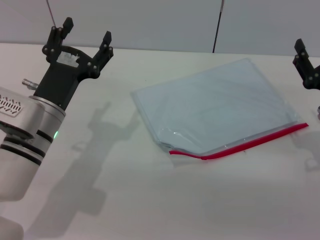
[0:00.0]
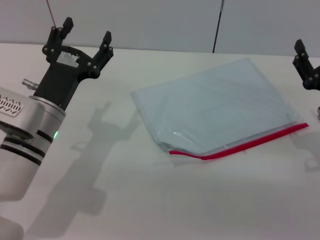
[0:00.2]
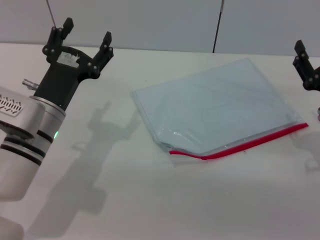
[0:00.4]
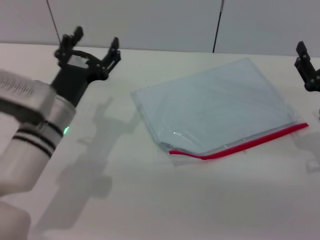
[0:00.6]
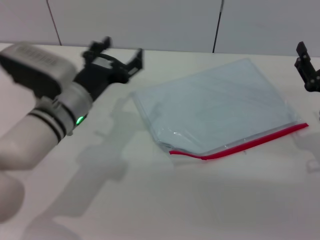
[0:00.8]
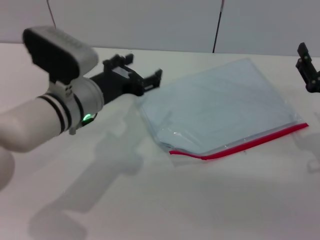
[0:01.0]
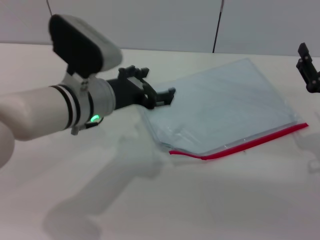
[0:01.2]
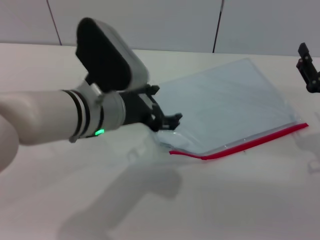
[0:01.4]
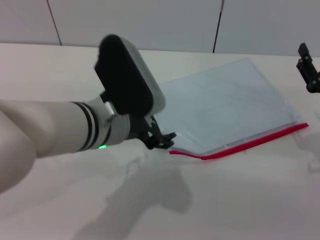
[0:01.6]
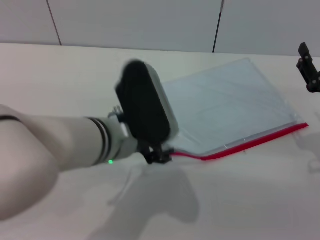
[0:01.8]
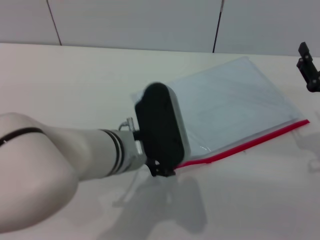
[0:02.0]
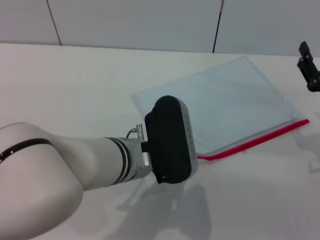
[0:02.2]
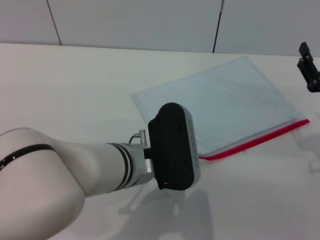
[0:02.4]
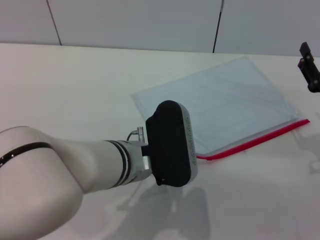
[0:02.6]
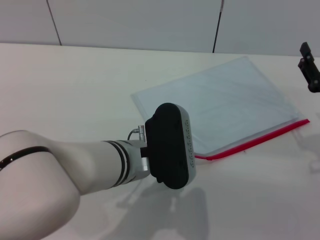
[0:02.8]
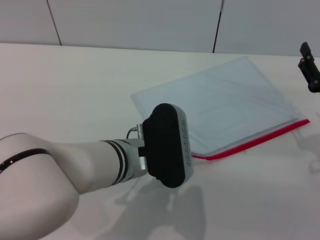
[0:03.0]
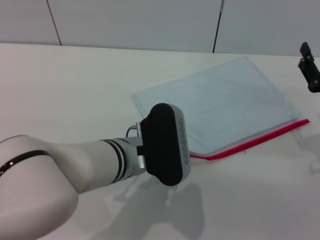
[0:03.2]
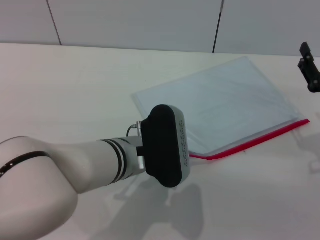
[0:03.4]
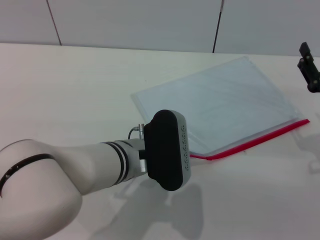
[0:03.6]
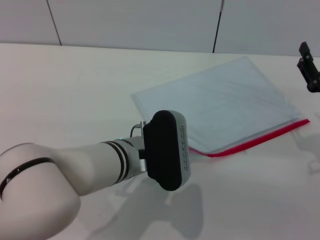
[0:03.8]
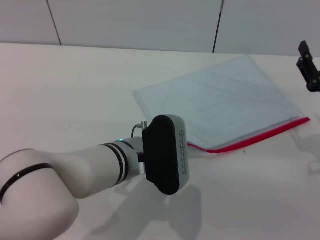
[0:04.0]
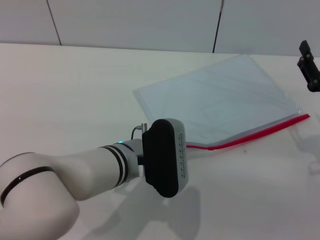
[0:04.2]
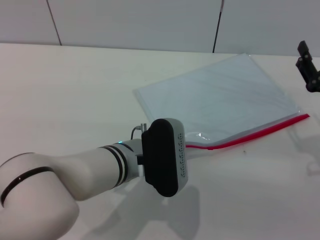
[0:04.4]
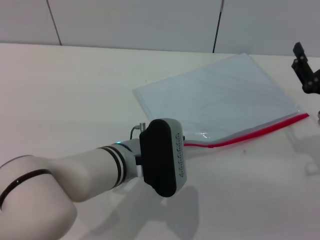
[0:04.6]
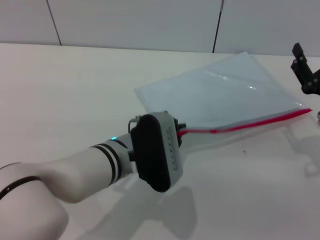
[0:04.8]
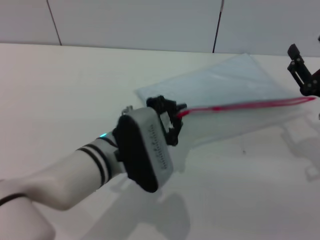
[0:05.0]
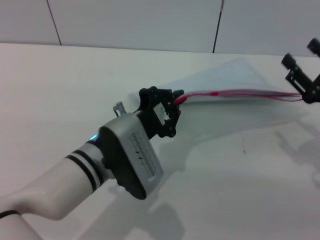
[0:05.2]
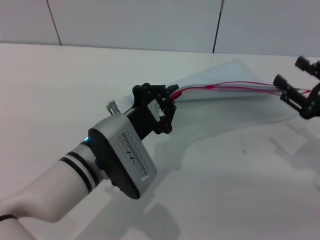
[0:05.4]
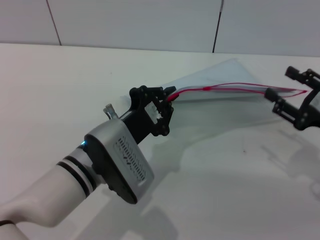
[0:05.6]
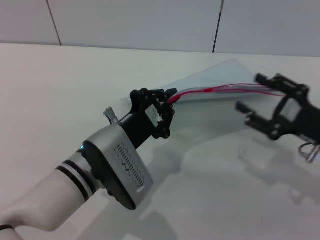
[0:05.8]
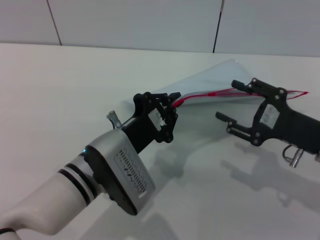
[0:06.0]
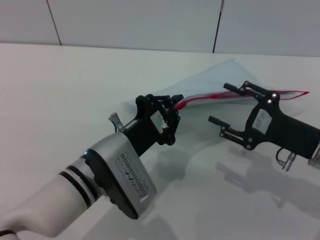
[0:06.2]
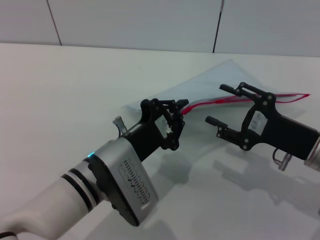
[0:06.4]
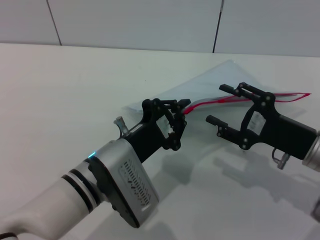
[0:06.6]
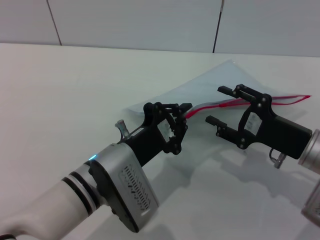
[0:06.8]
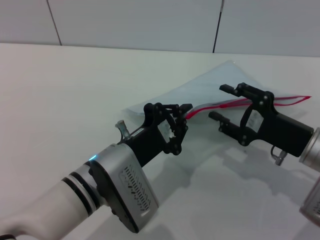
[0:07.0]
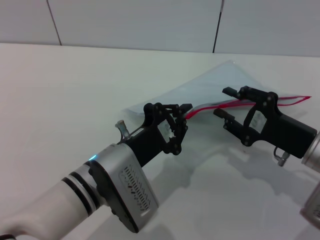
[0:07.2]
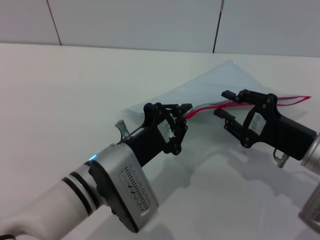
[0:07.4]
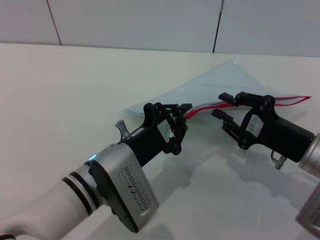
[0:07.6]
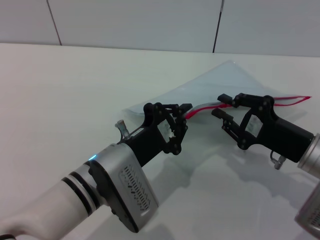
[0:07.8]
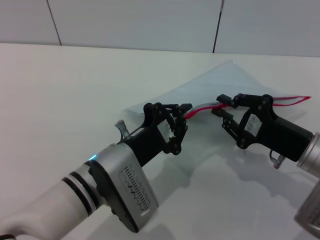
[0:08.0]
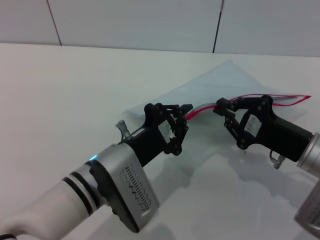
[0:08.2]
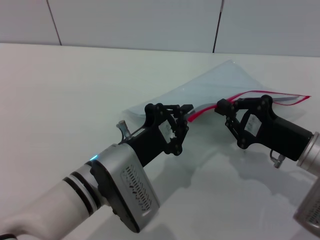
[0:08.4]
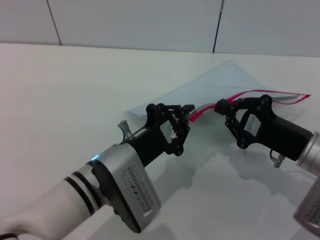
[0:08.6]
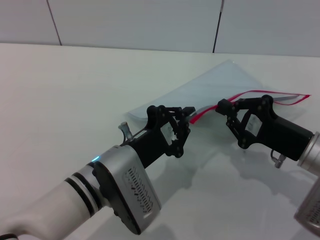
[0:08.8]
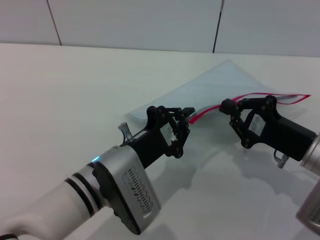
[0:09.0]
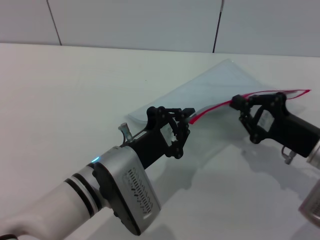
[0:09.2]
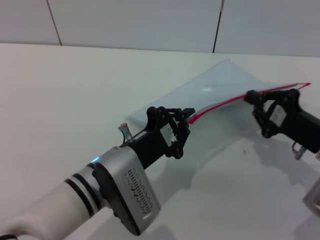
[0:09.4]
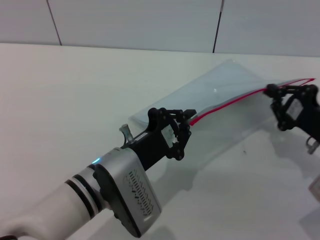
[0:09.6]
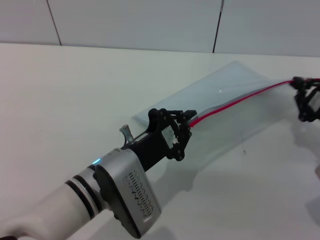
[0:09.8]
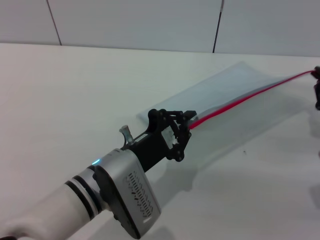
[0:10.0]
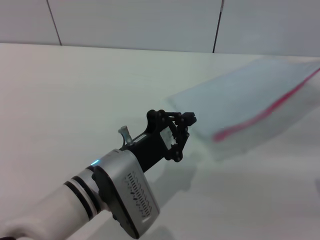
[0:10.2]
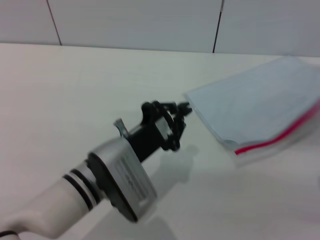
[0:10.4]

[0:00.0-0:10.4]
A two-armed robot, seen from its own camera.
Step, 0:00.0 to 0:05.8: Pick up the transparent plastic bag with the left gripper.
Step, 0:06.0 to 0:10.2: Pulling up the zipper on the transparent plastic bag with the right gripper to close it.
0:00.0 to 0:01.4: The left gripper travels upward and to the right by some 10 cm.
0:01.4 to 0:03.0: The left gripper changes place by roughly 5 cm.
0:03.0 to 0:04.4: The left gripper closes.
0:07.4 to 0:09.0: The right gripper closes its fingers.
0:09.0 to 0:10.4: The right gripper goes some 10 cm to the right.

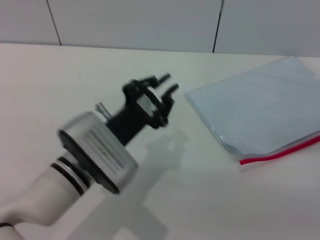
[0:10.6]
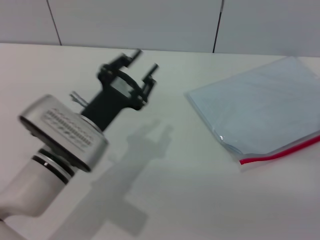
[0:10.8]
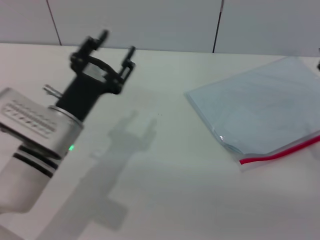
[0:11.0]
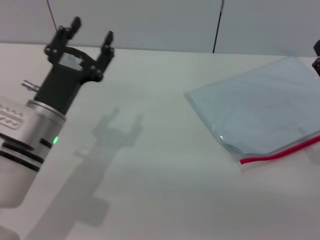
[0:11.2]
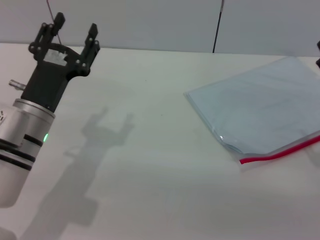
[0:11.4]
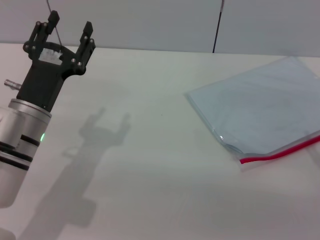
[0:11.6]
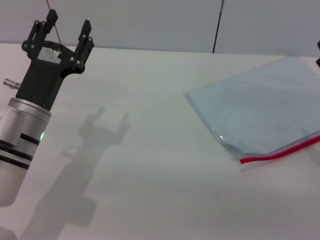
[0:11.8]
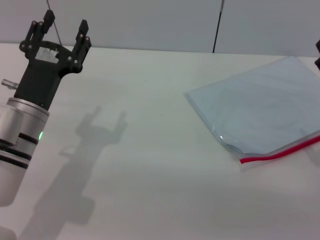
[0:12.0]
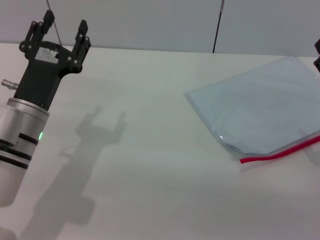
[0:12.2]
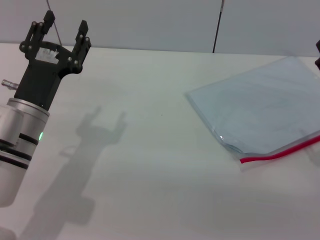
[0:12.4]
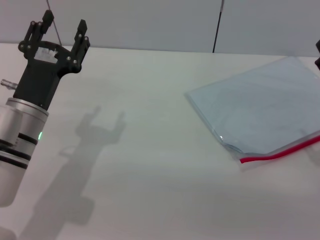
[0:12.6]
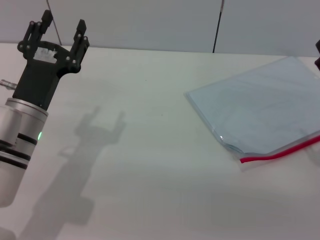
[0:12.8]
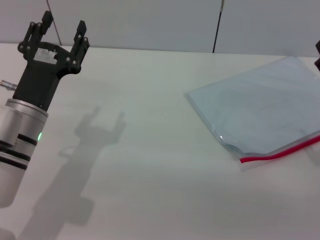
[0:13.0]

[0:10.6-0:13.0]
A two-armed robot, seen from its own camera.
0:10.6 to 0:11.8: The left gripper is displaced to the left by approximately 10 cm, and opens. Meanwhile the right gripper opens up.
0:11.8 to 0:13.0: Both grippers stay put.
